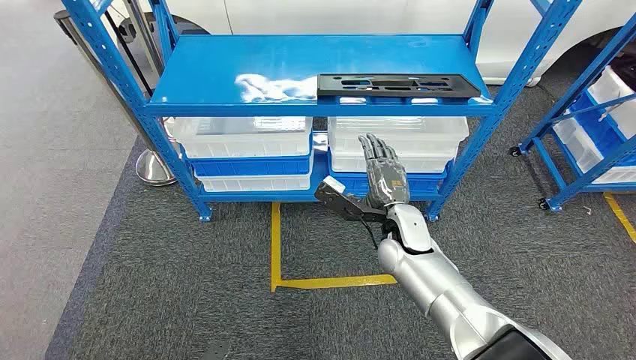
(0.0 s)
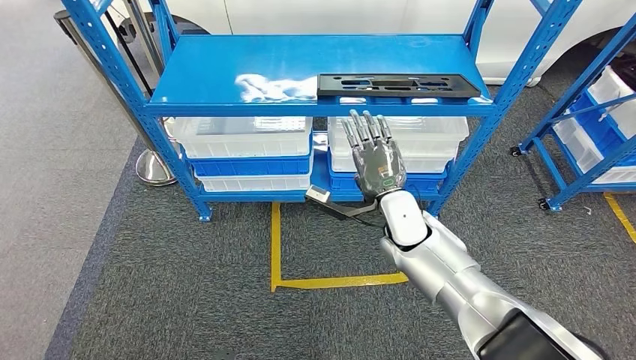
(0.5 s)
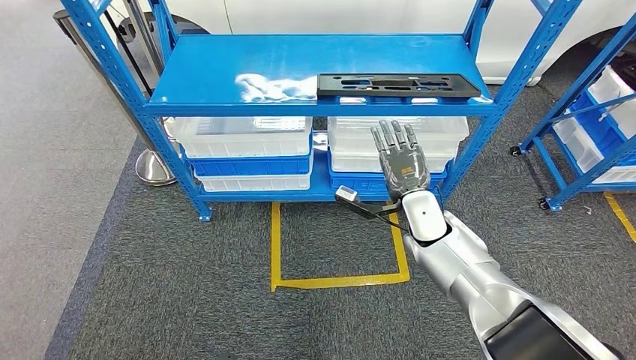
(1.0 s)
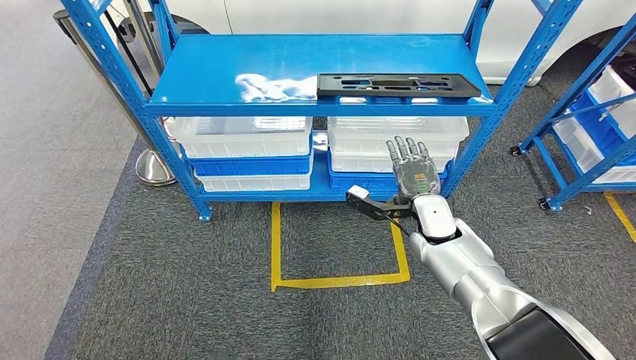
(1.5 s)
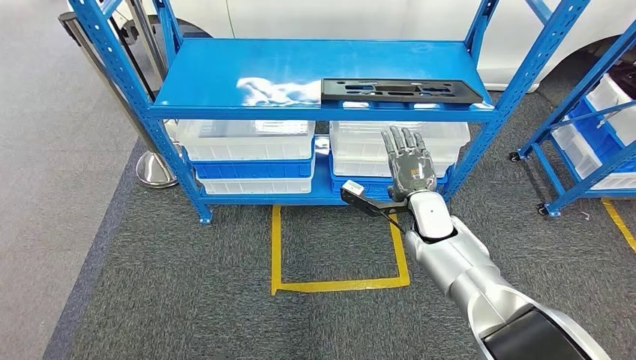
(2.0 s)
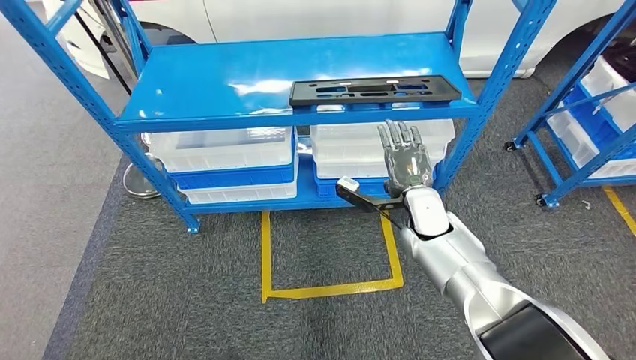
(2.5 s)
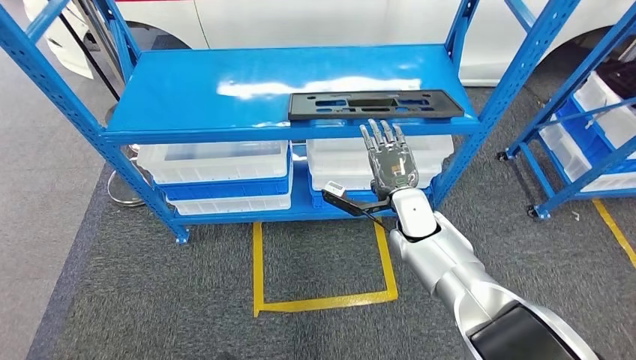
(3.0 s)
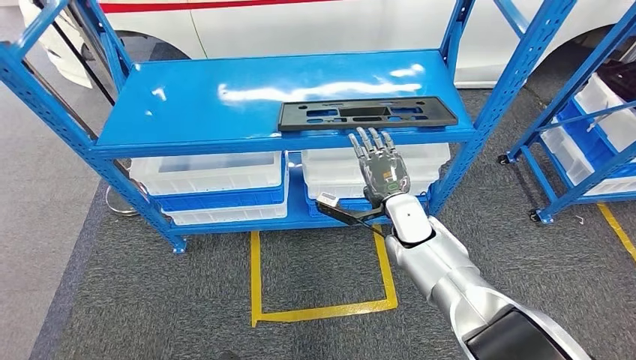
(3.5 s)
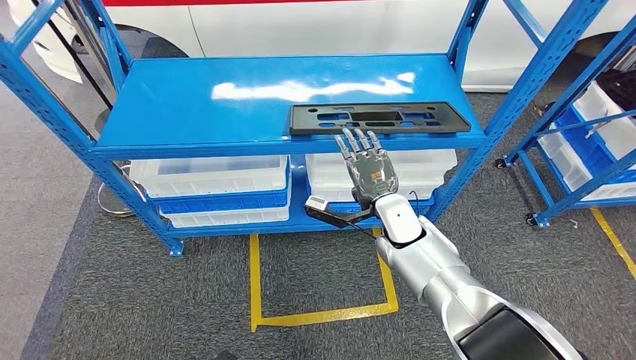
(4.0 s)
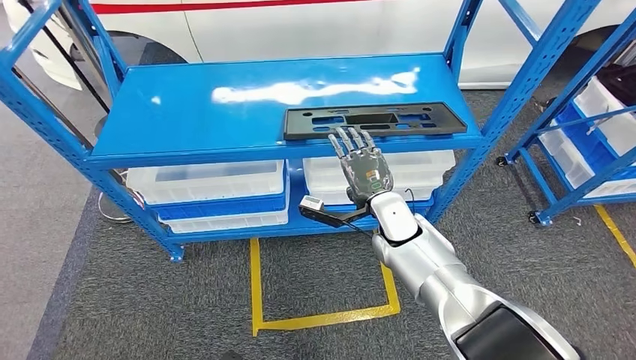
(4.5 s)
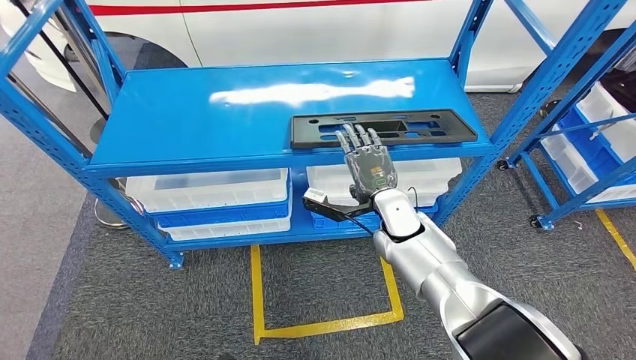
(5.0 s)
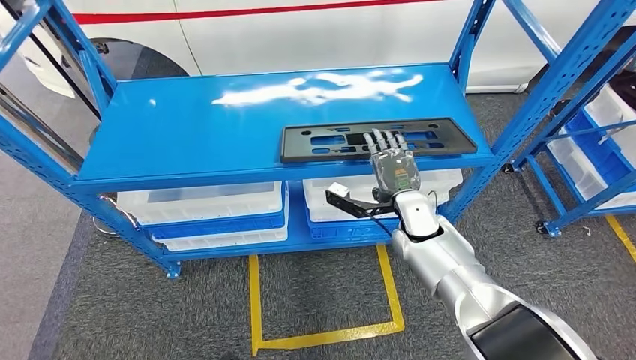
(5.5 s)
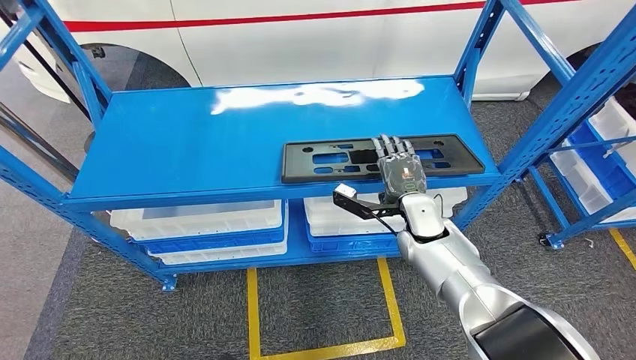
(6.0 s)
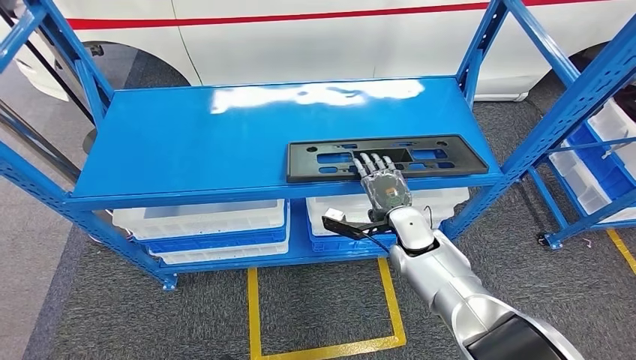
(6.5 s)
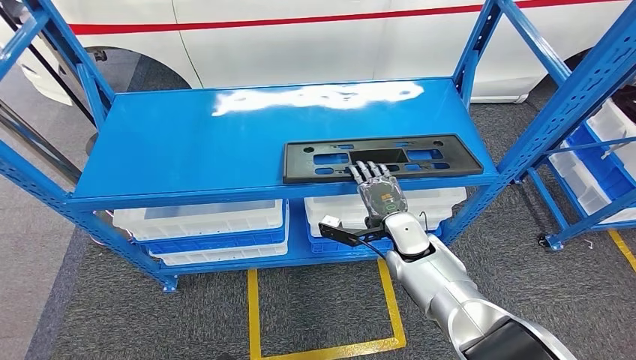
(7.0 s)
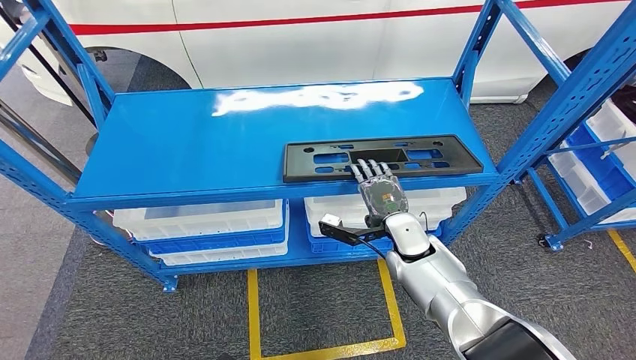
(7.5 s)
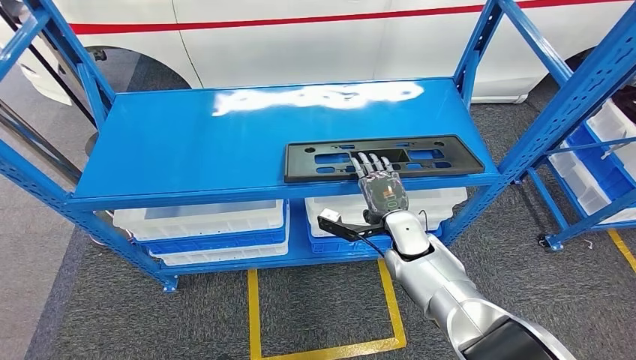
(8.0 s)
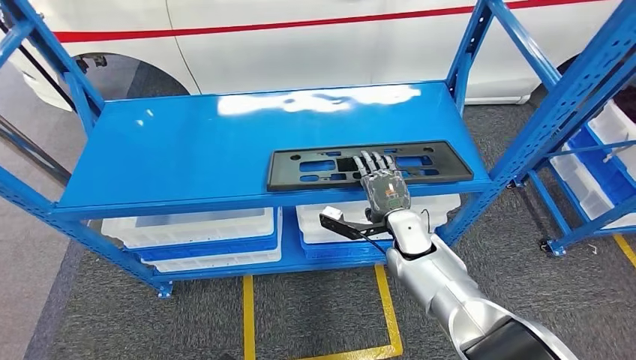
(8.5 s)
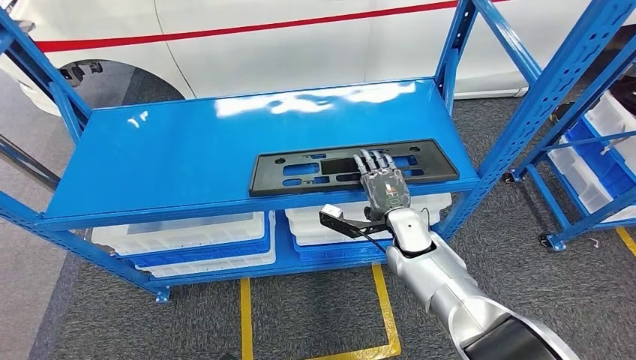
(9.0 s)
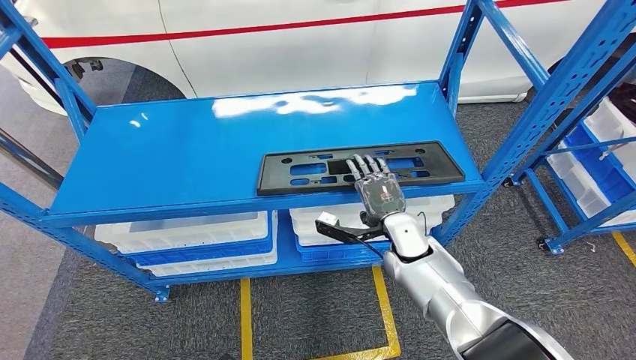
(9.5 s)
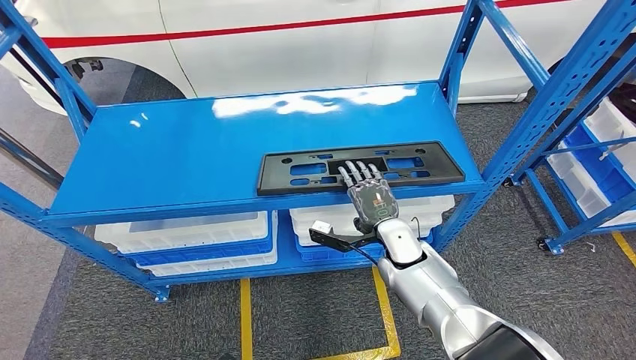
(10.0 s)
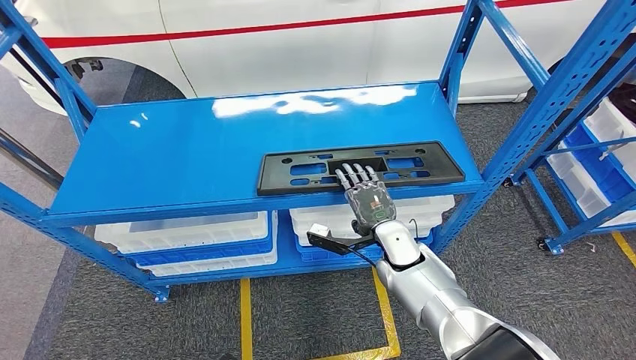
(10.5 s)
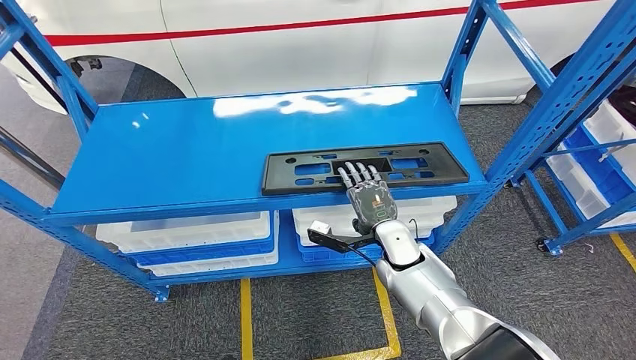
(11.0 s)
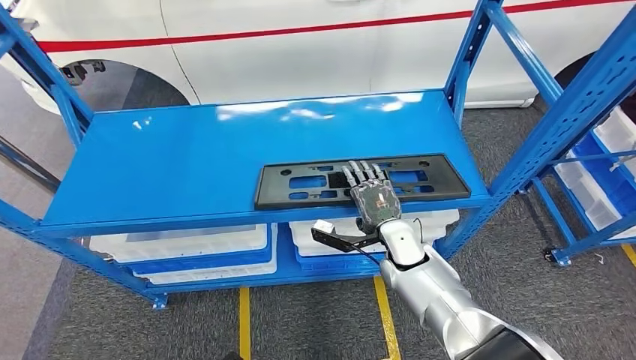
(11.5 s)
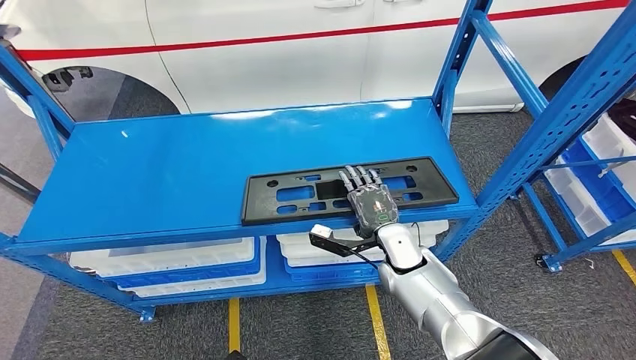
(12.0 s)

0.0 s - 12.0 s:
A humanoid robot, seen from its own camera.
6.0 s - 8.0 s: The hands move only a little.

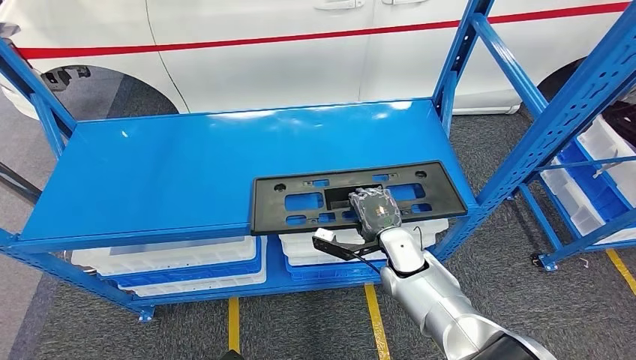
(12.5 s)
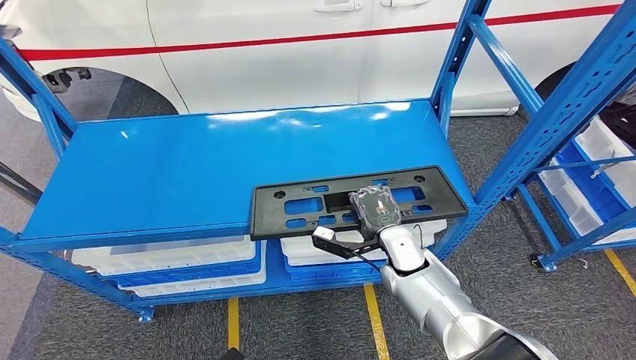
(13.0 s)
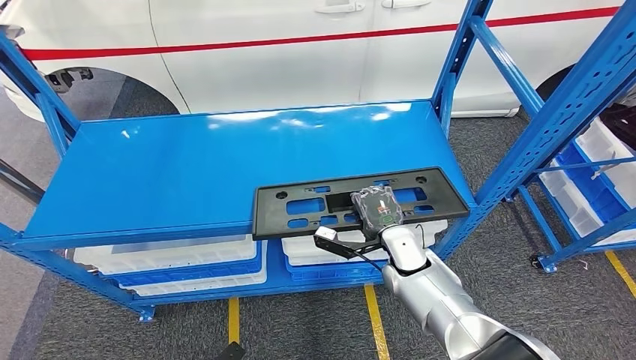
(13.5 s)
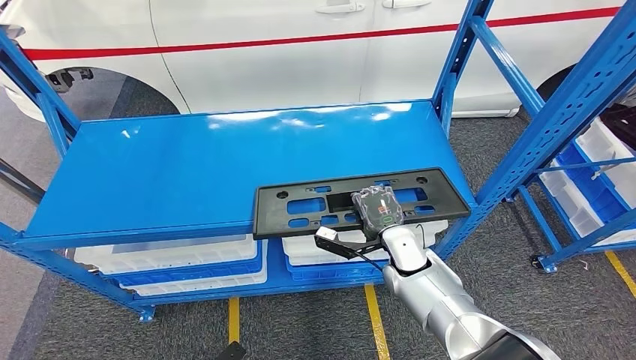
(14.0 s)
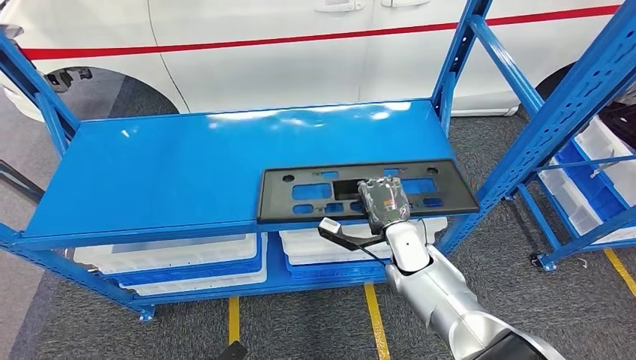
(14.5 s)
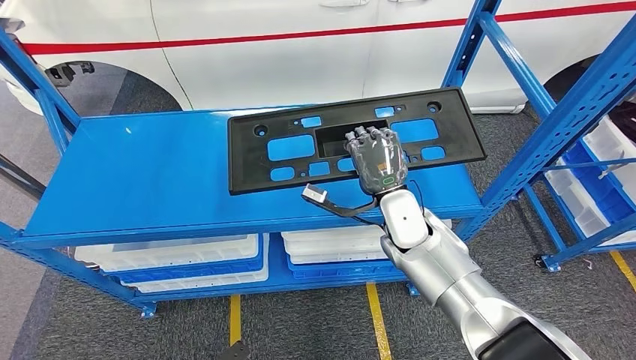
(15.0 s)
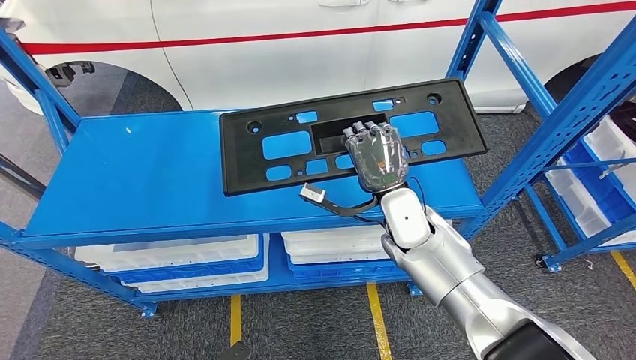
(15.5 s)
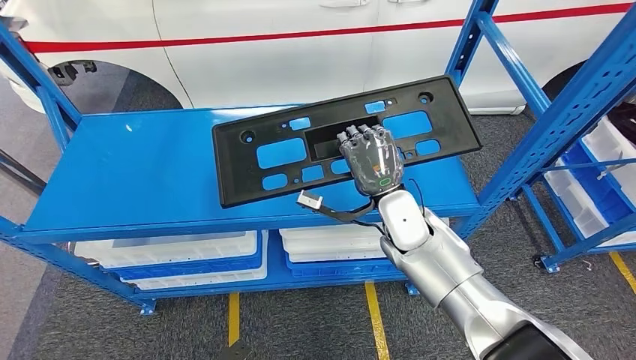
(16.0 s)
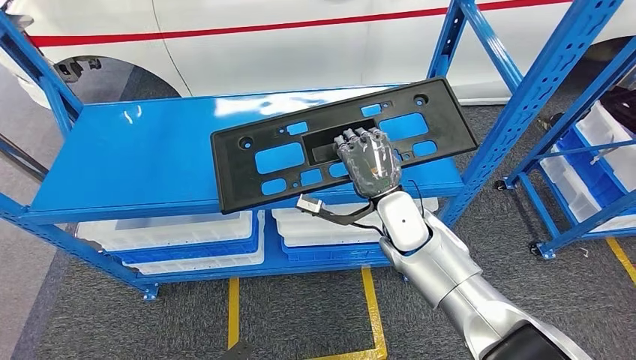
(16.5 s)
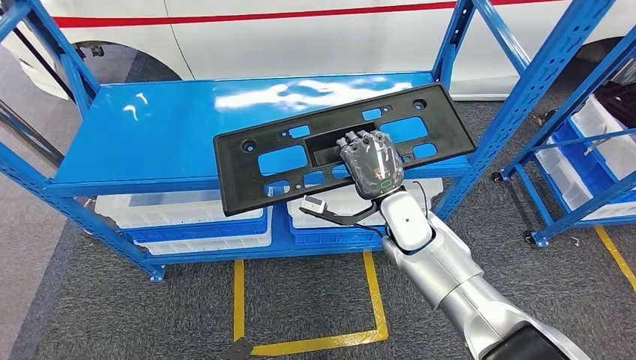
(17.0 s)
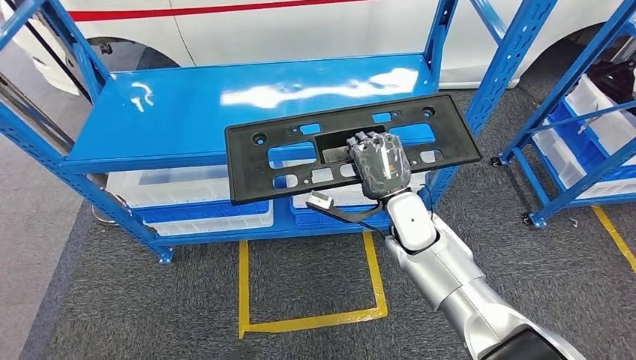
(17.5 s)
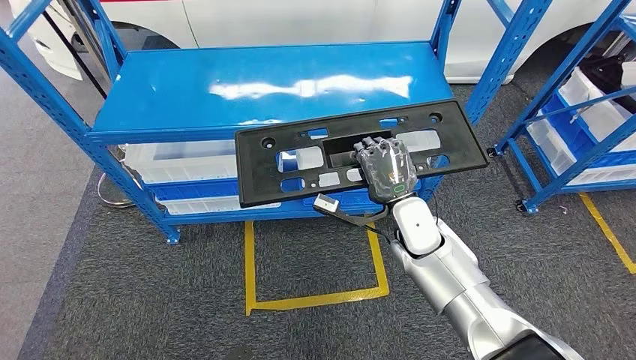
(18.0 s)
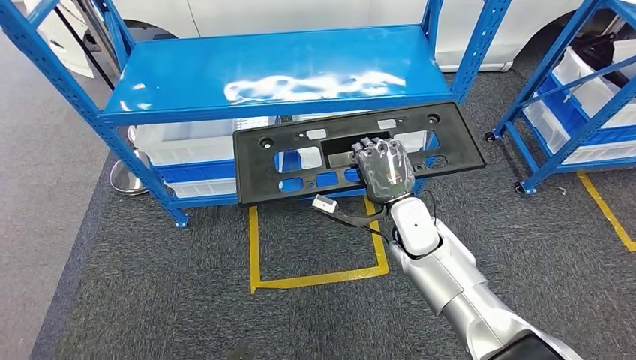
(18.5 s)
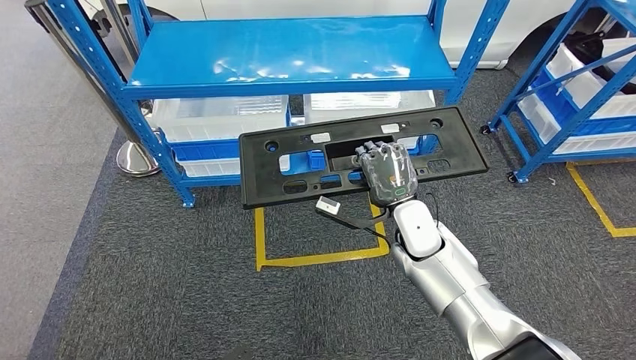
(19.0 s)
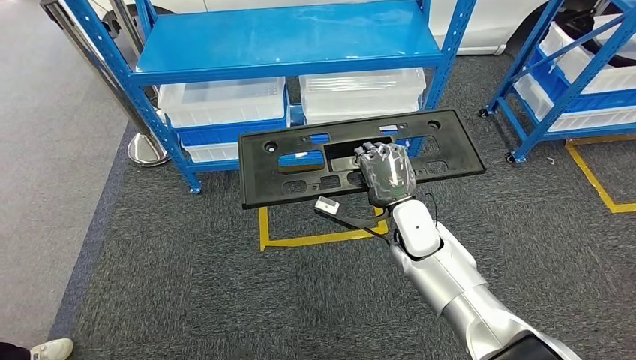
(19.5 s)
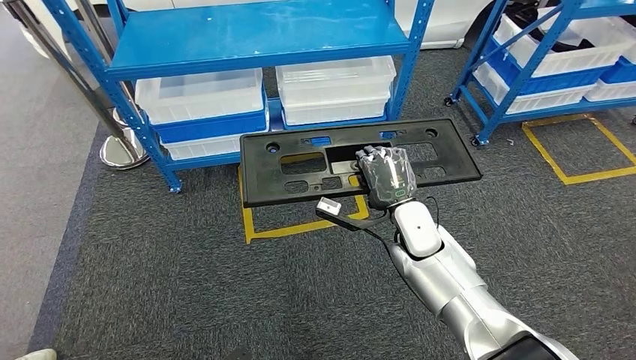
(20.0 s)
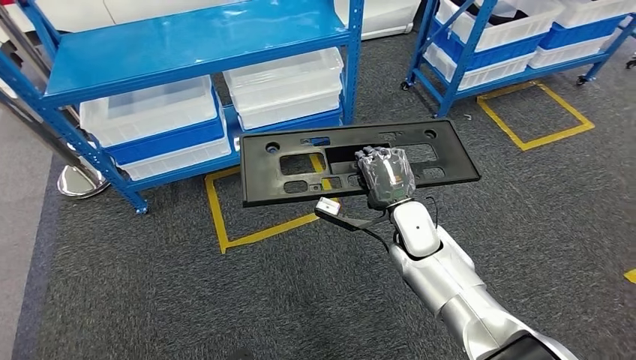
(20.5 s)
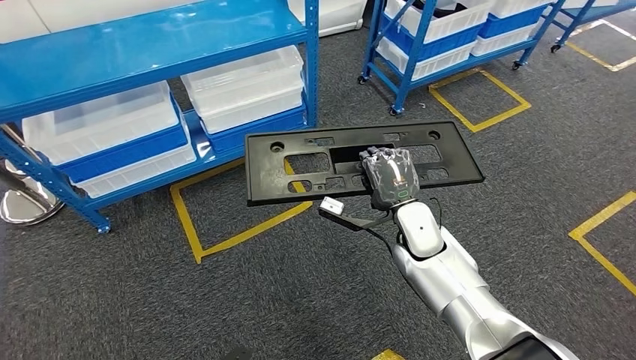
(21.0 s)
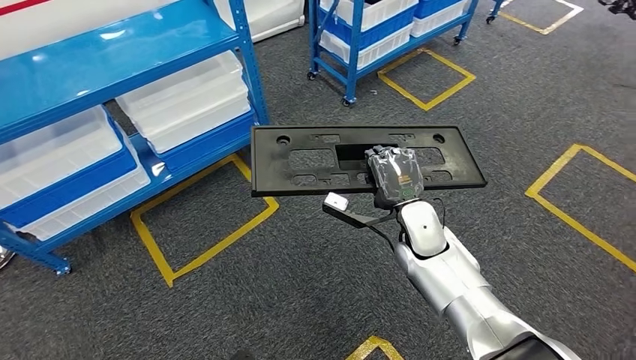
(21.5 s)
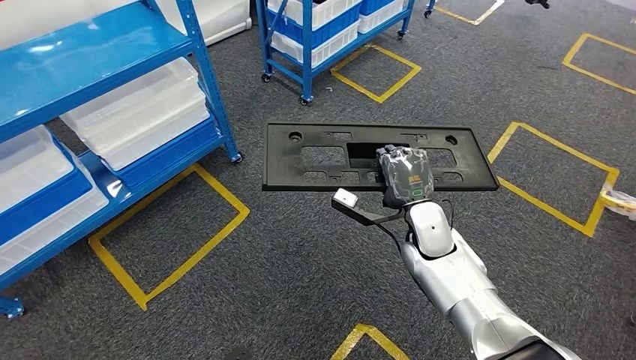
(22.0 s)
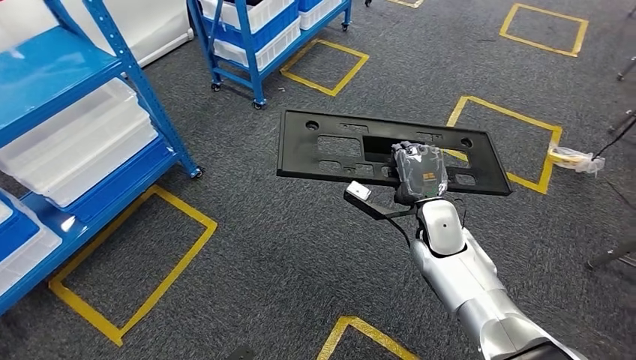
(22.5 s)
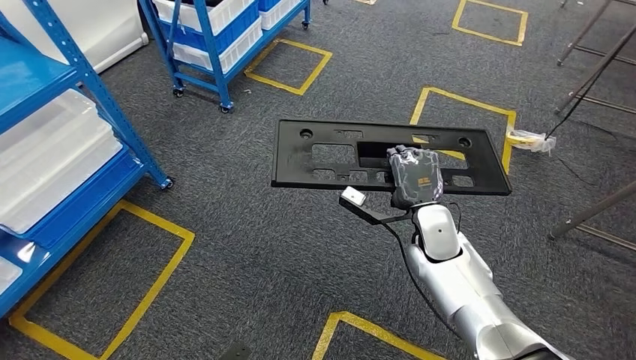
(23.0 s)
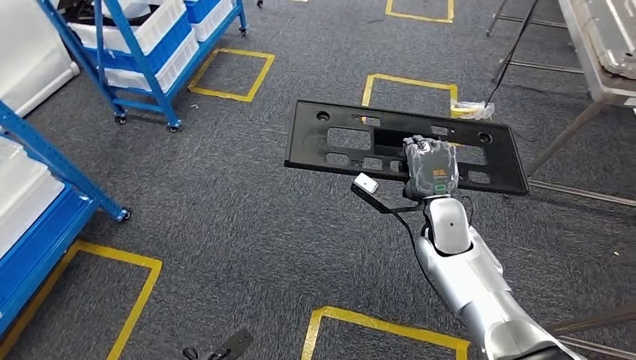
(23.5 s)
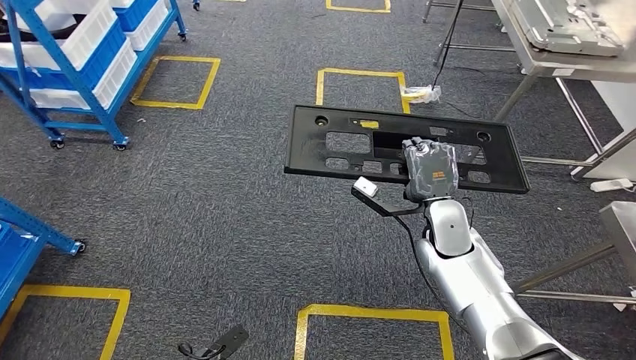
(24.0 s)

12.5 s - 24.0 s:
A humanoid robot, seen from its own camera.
Step, 12.5 s - 16.5 s: Pick up the large material from the shelf.
12.5 s - 14.5 s: The hands make only small movements.
